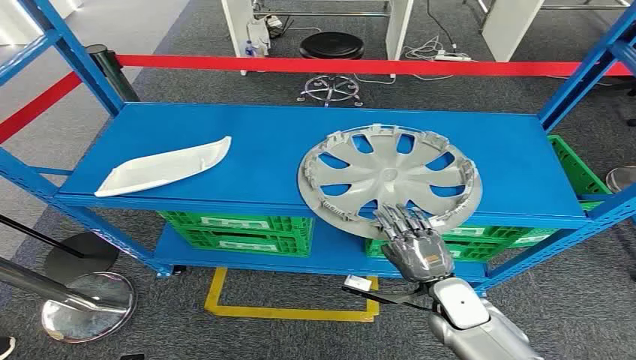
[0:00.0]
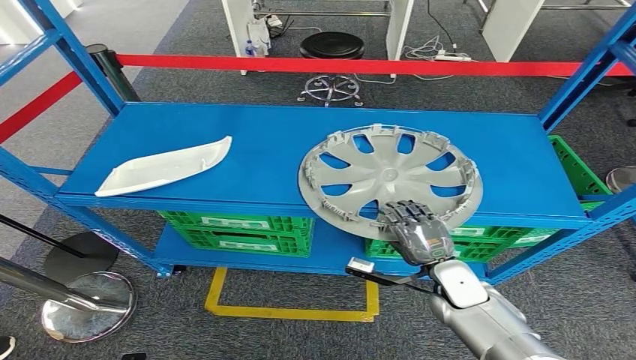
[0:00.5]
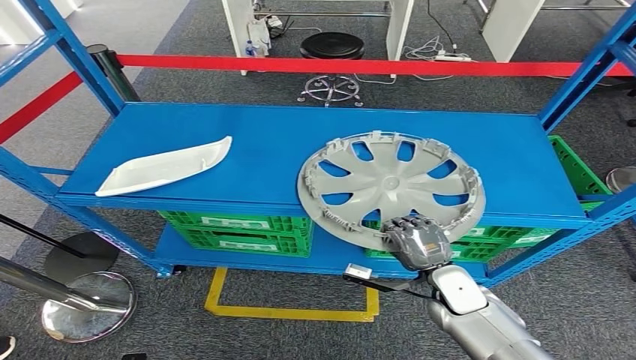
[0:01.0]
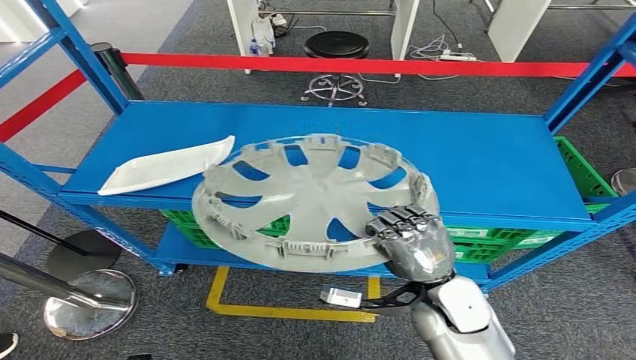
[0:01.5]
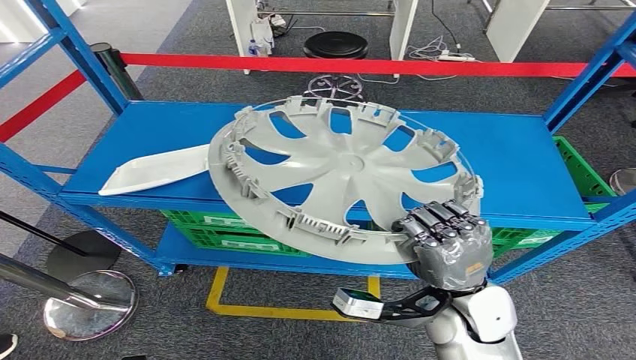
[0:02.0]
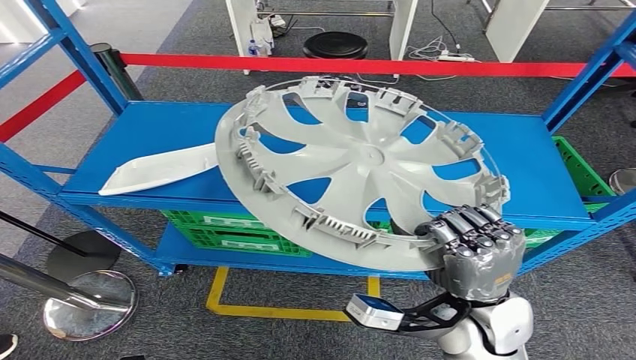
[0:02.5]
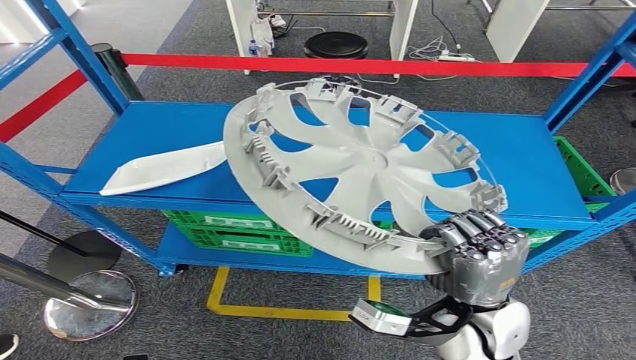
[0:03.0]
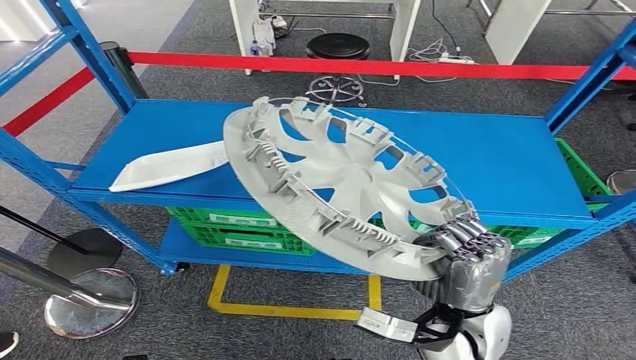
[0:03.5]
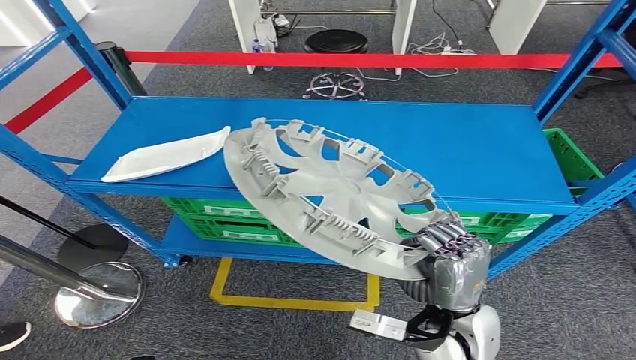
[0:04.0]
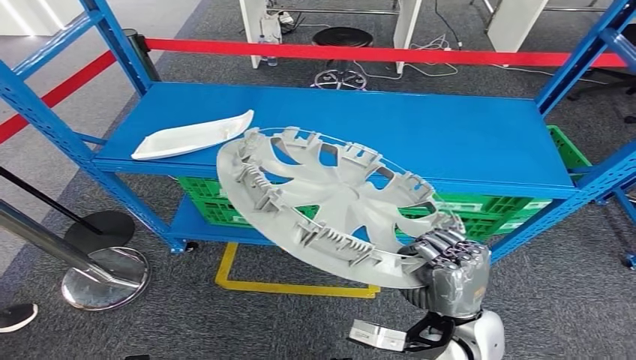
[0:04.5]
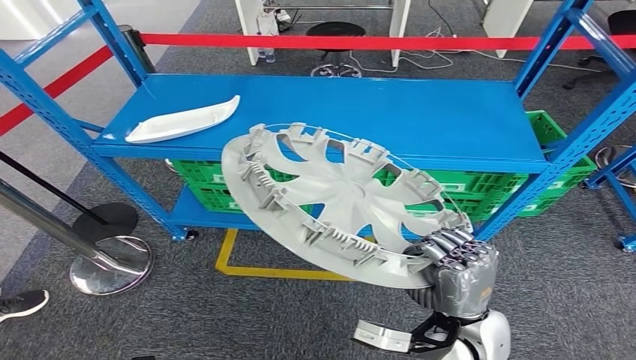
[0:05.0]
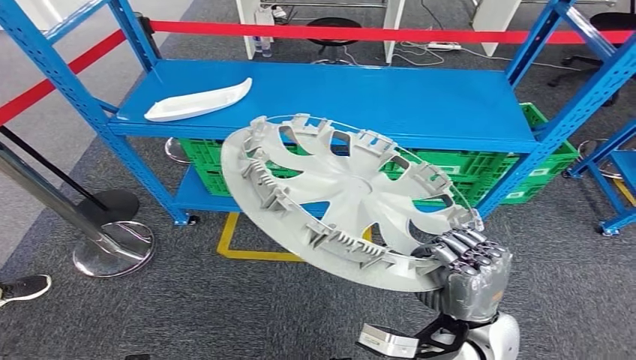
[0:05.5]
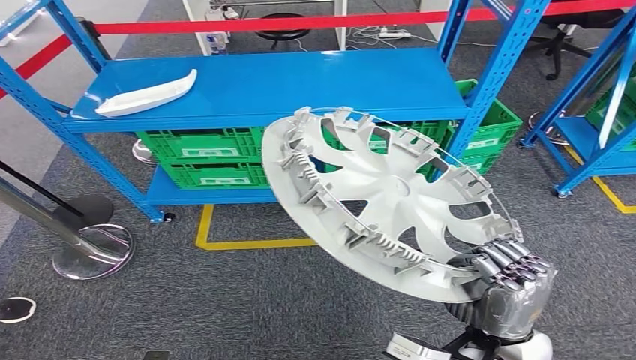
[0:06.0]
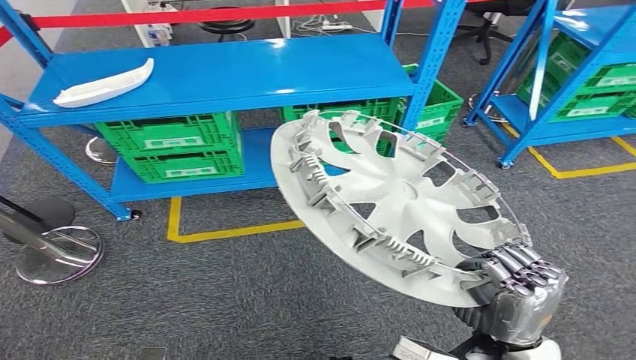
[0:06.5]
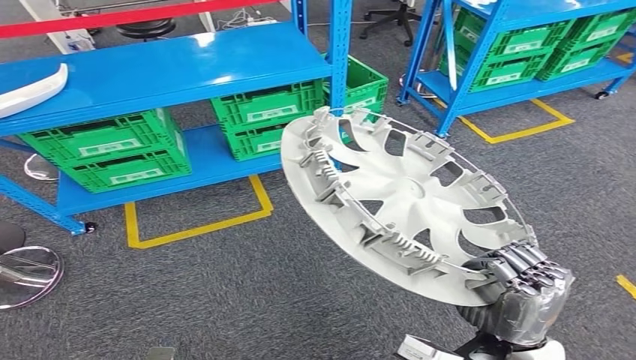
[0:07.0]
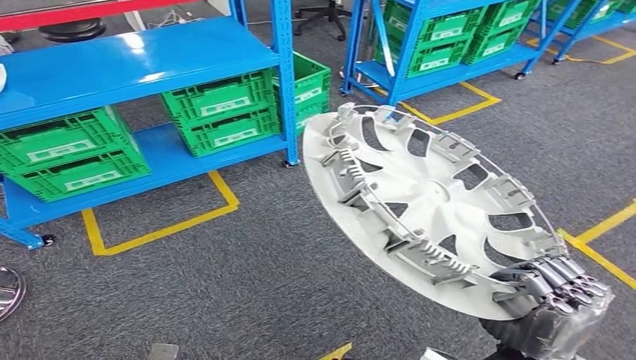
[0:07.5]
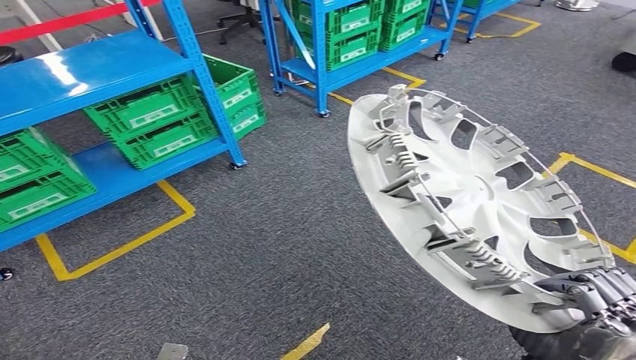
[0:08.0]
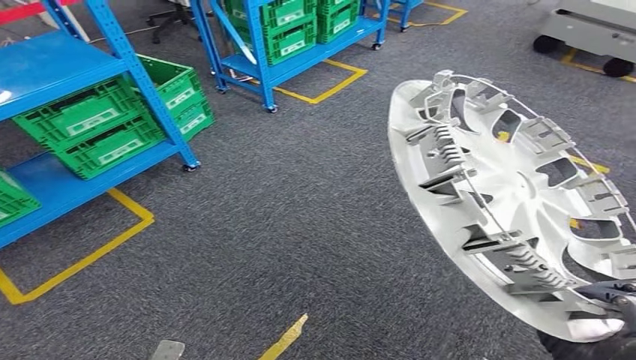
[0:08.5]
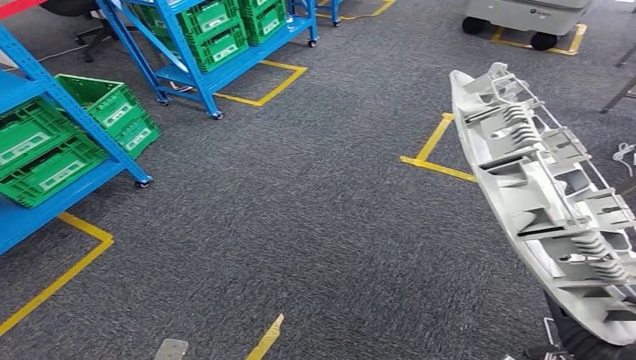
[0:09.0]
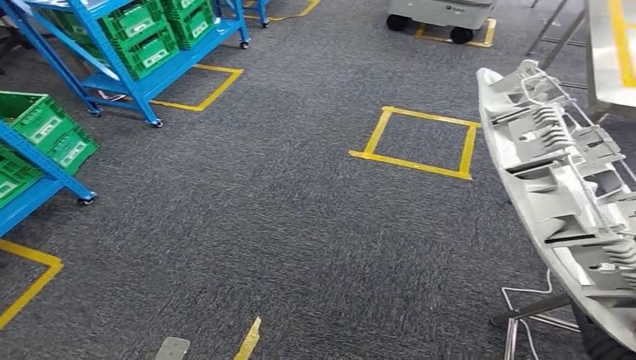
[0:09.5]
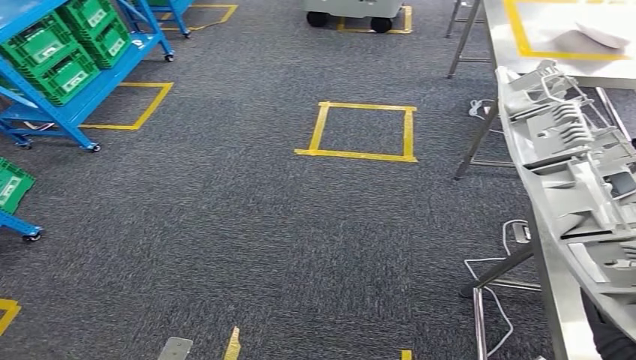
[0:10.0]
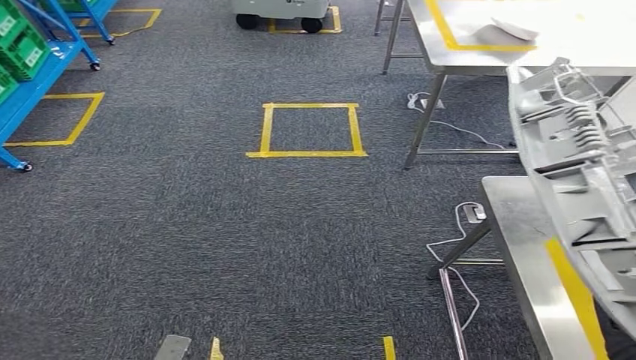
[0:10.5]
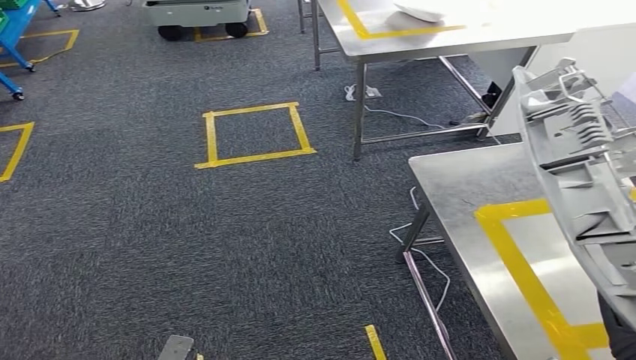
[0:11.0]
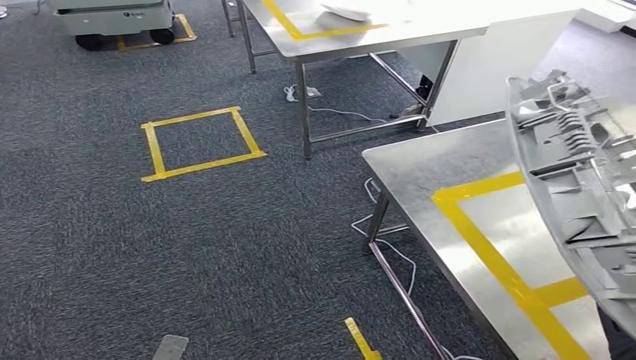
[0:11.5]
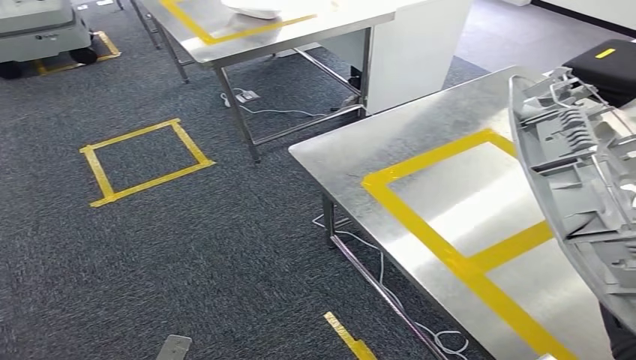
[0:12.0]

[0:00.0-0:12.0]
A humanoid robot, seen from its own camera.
Step, 0:00.0 to 0:05.5: Pick up the small parts from the shelf.

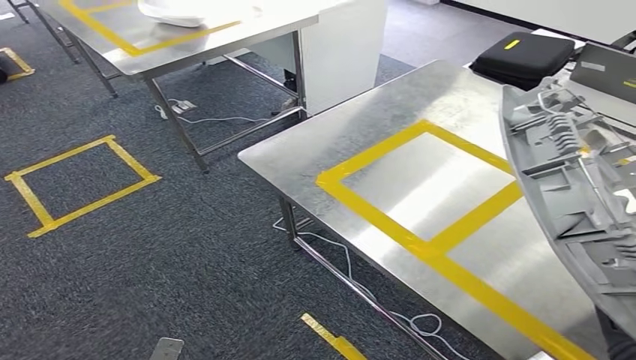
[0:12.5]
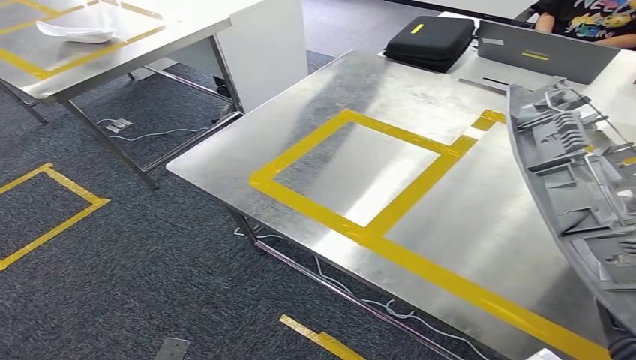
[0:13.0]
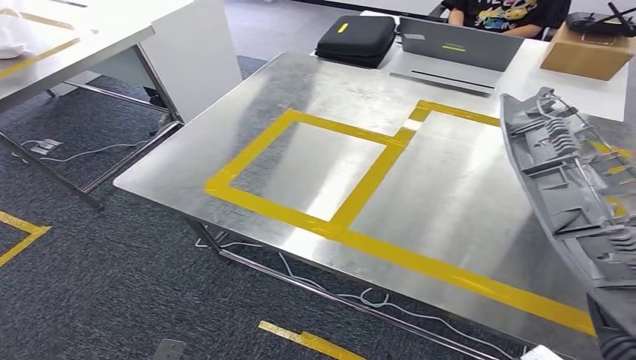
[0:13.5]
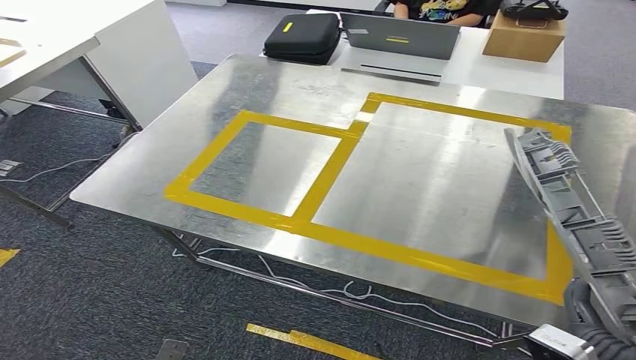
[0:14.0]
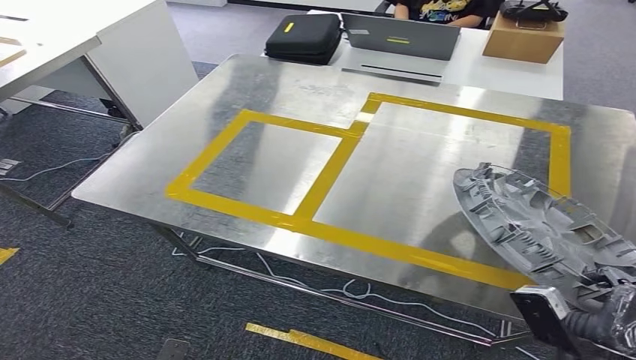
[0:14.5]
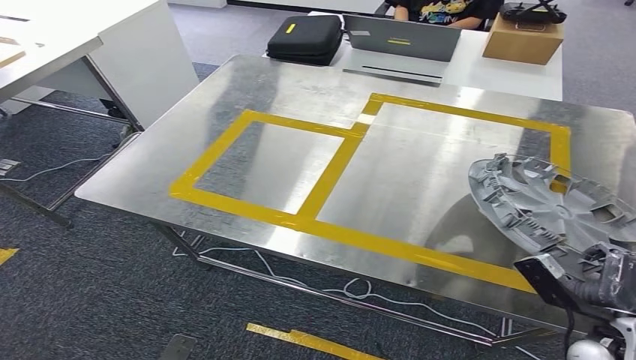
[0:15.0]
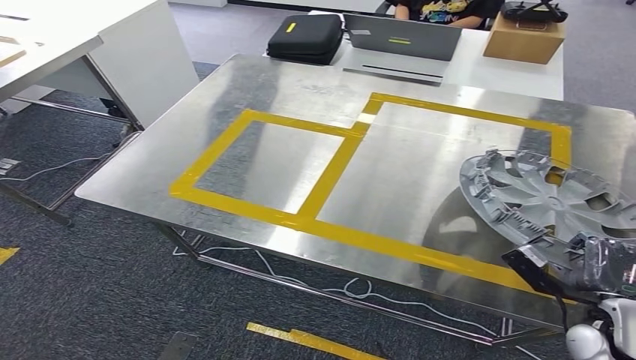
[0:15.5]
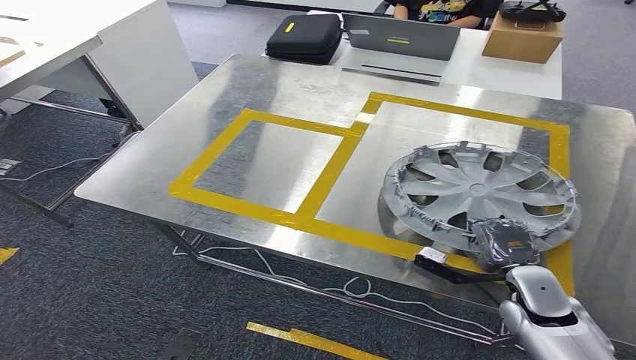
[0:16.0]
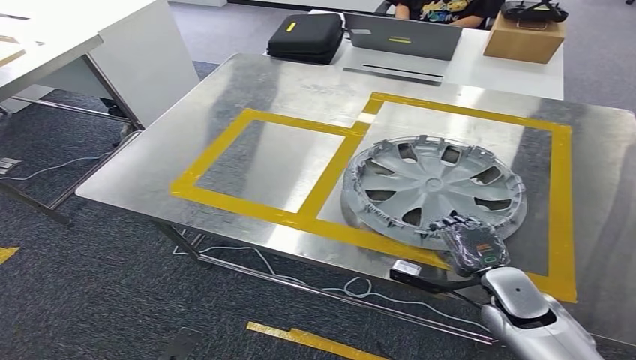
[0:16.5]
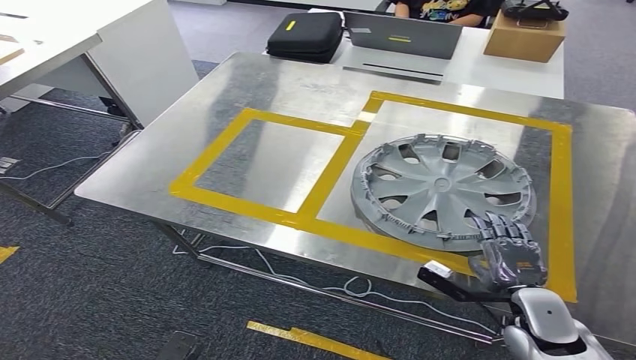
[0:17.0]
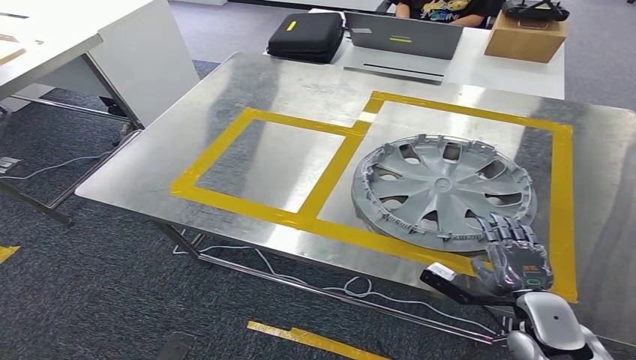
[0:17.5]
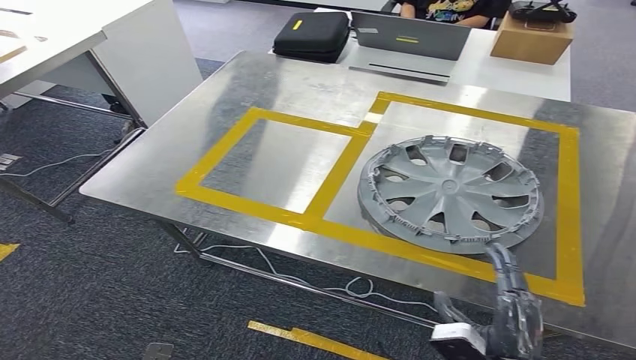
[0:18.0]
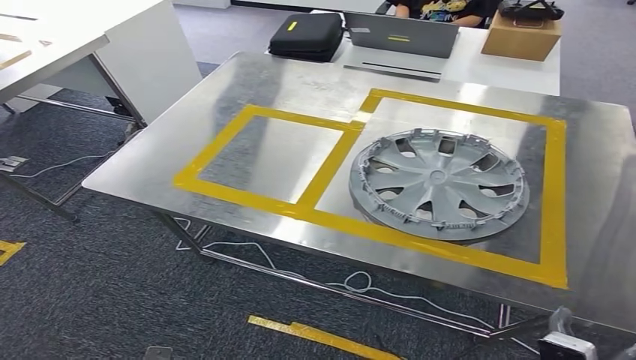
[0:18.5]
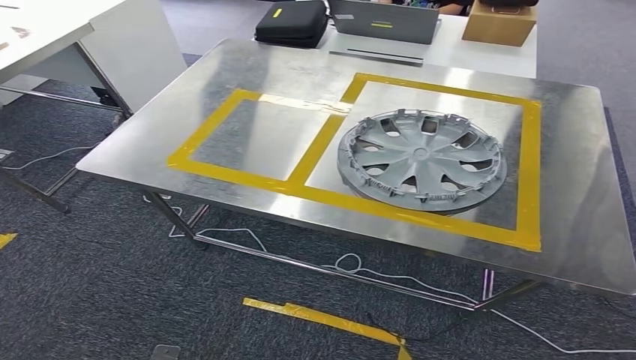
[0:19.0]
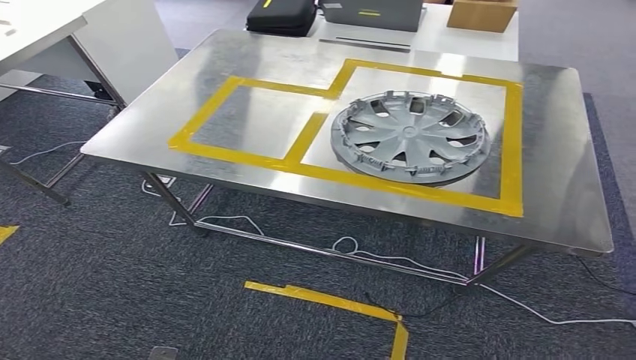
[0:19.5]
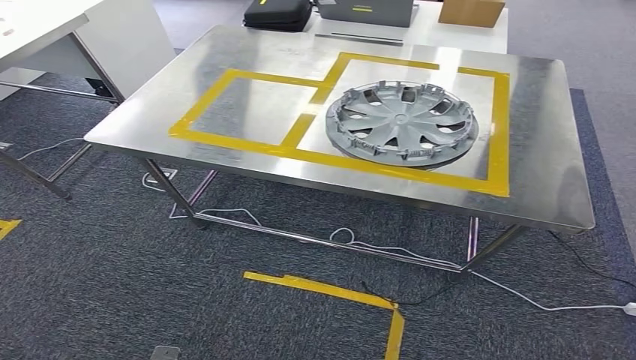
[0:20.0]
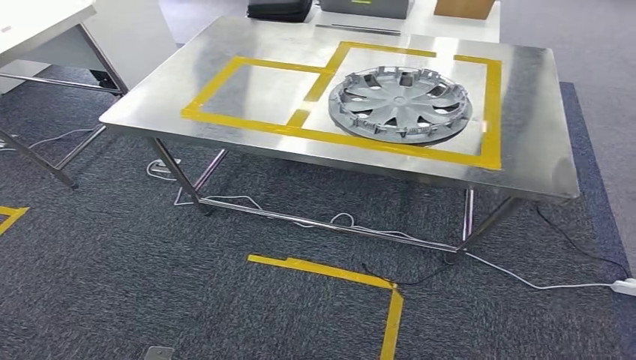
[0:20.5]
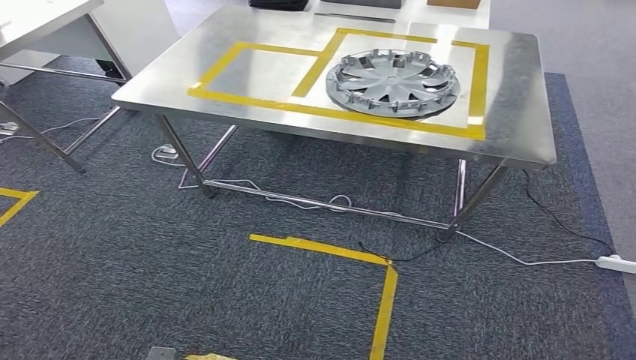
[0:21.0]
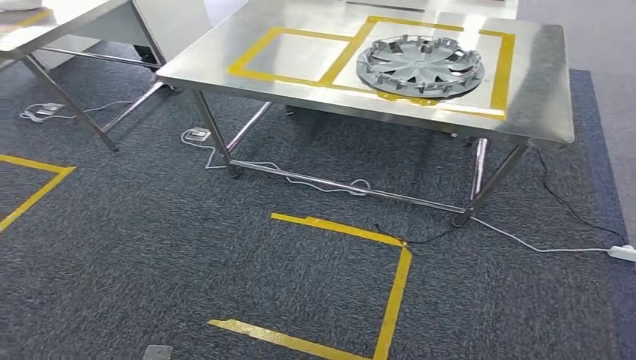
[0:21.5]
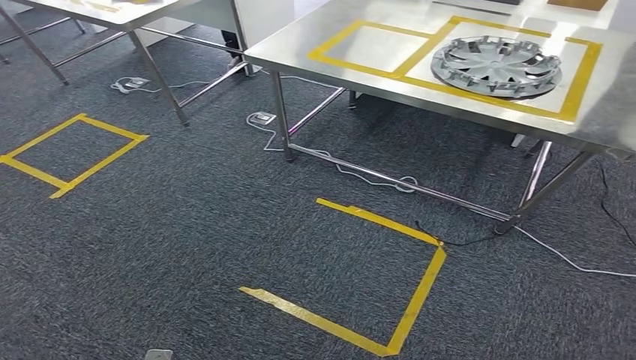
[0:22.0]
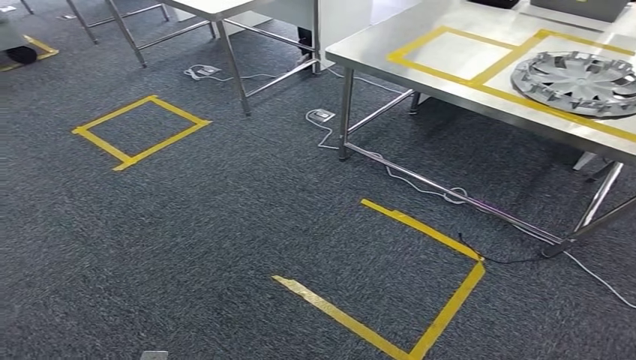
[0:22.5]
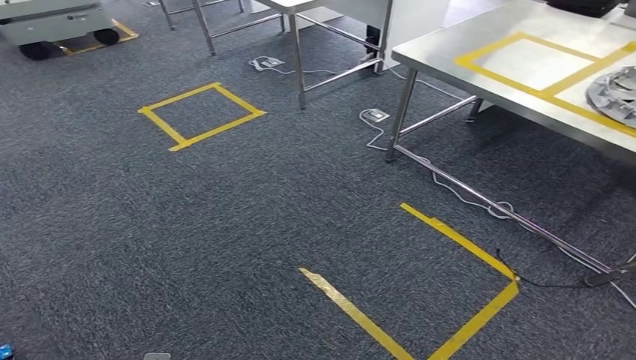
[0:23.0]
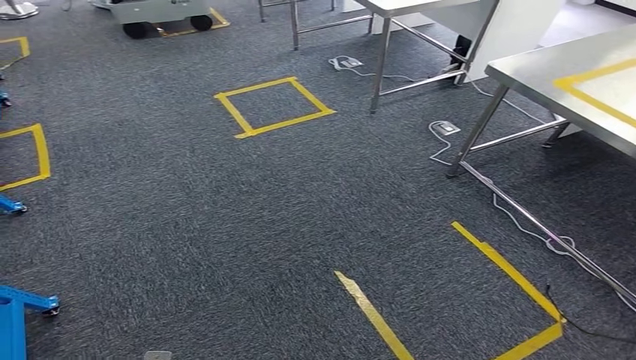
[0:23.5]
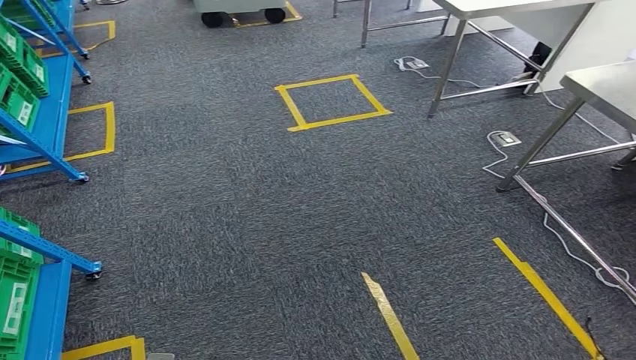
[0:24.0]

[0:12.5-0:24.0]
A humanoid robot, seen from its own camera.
Step, 0:14.0 to 0:18.0: Insert the small parts into the corresponding slots on the workbench.
0:14.5 to 0:16.5: The right hand goes some 15 cm forward.
